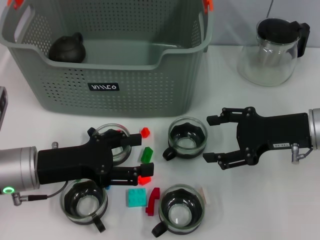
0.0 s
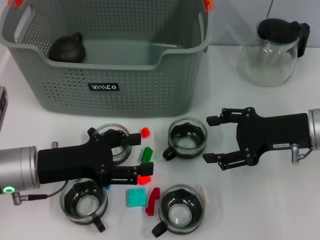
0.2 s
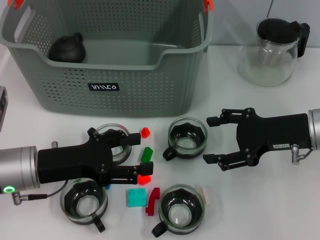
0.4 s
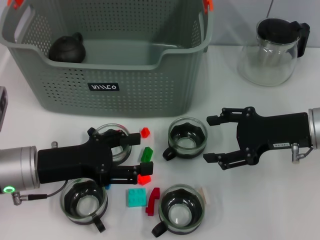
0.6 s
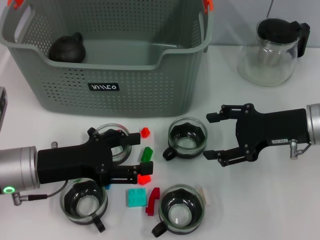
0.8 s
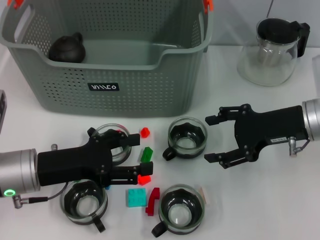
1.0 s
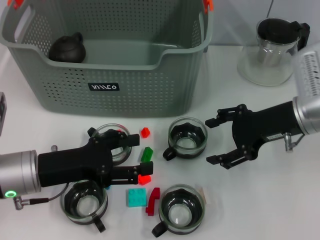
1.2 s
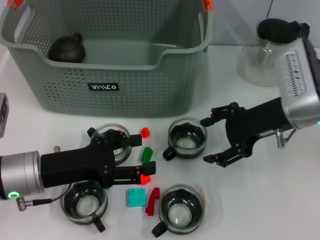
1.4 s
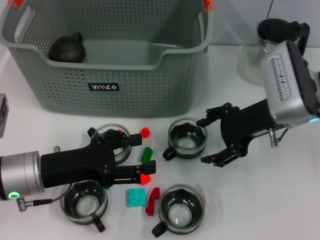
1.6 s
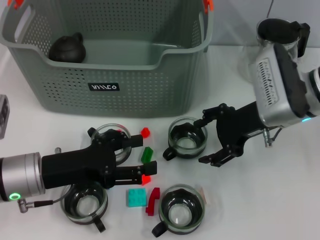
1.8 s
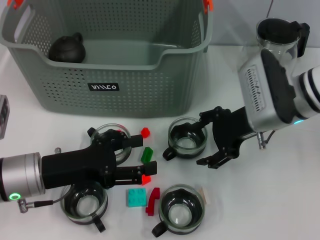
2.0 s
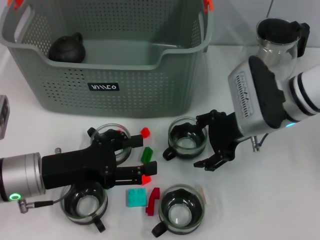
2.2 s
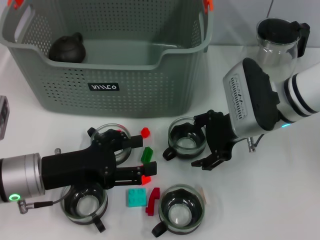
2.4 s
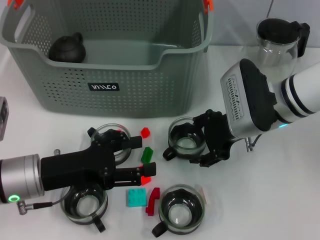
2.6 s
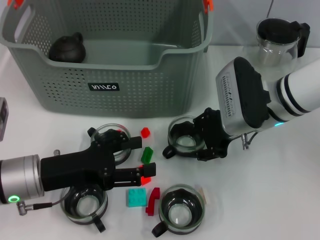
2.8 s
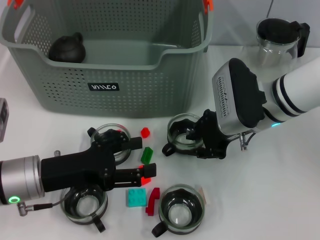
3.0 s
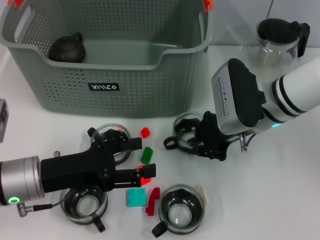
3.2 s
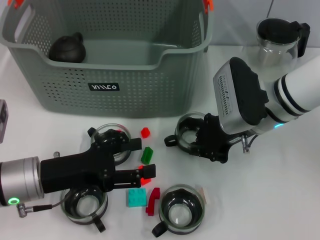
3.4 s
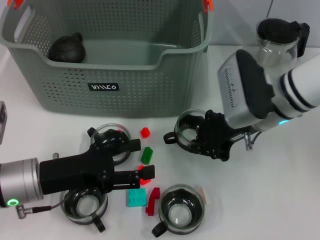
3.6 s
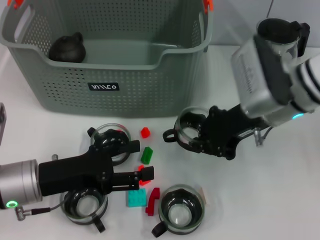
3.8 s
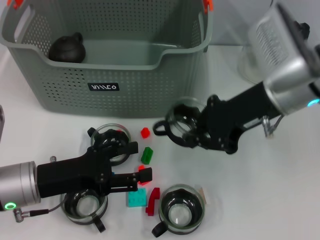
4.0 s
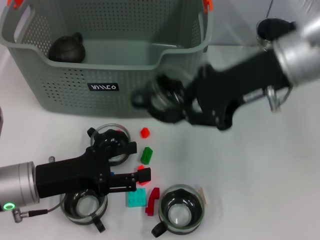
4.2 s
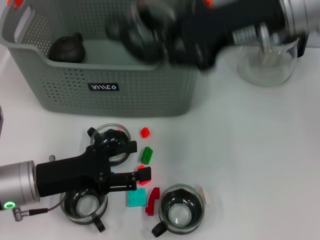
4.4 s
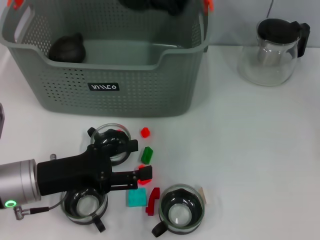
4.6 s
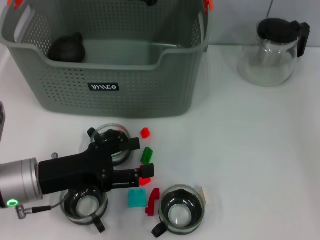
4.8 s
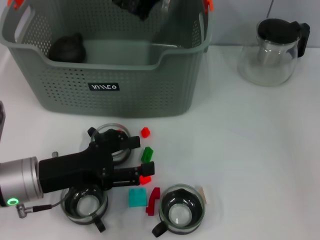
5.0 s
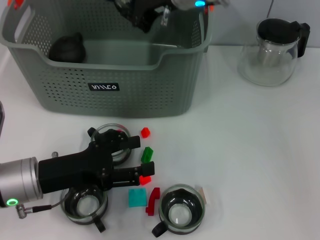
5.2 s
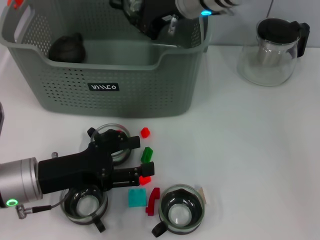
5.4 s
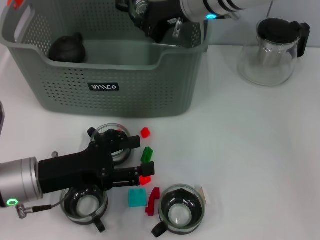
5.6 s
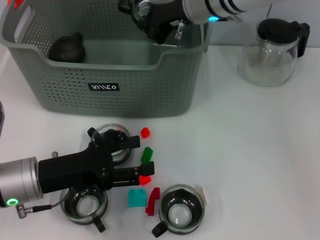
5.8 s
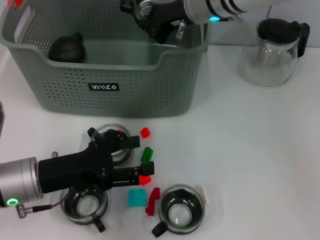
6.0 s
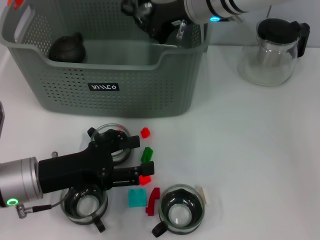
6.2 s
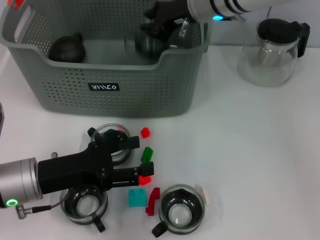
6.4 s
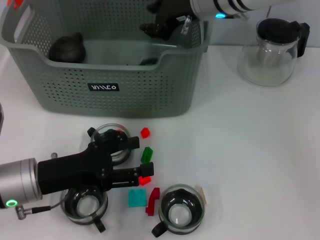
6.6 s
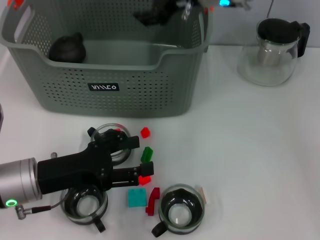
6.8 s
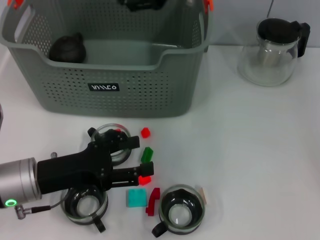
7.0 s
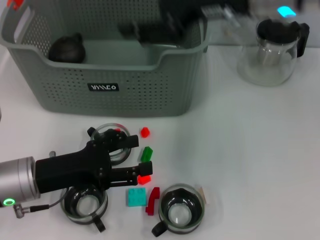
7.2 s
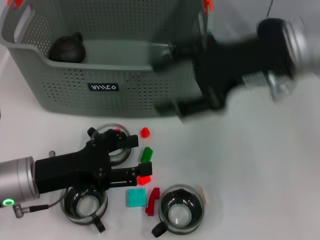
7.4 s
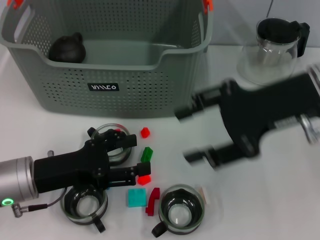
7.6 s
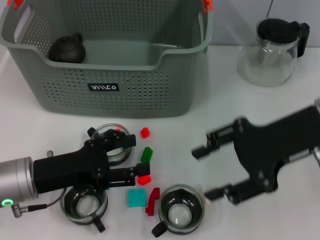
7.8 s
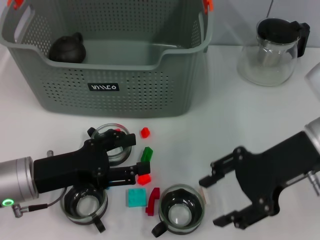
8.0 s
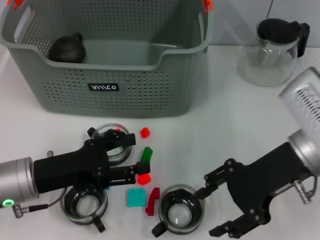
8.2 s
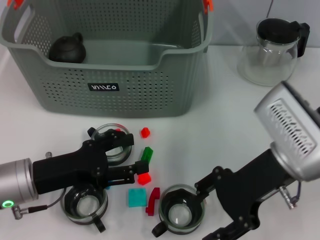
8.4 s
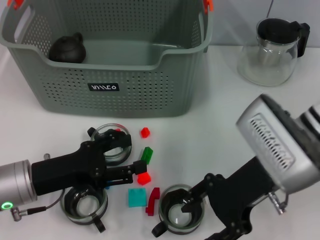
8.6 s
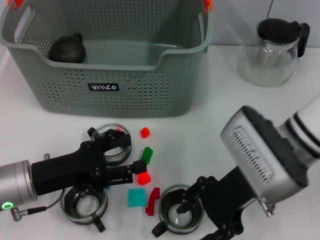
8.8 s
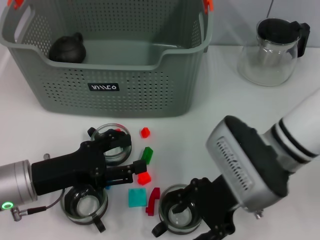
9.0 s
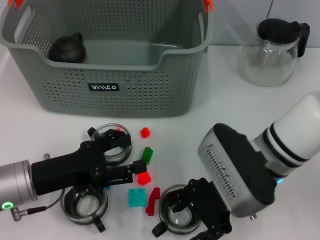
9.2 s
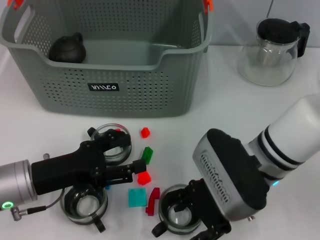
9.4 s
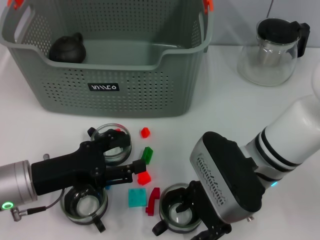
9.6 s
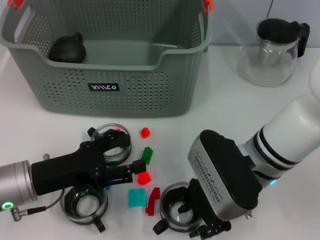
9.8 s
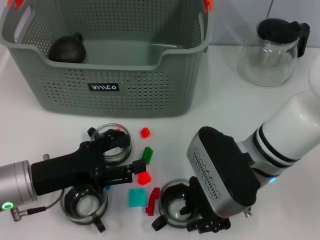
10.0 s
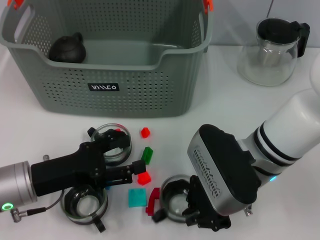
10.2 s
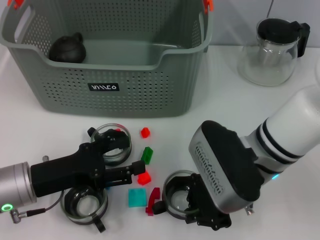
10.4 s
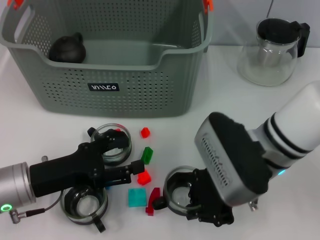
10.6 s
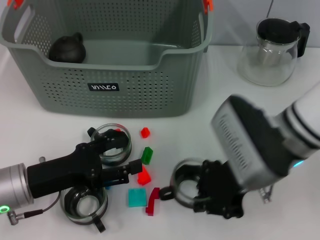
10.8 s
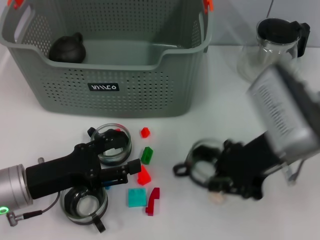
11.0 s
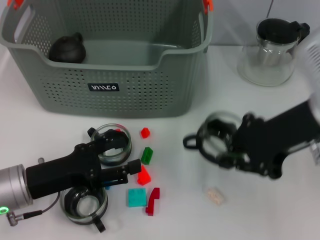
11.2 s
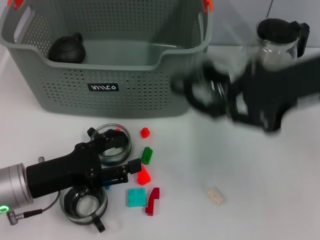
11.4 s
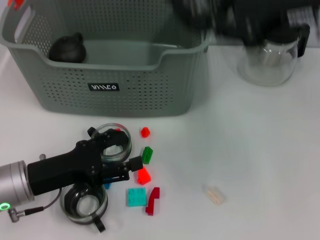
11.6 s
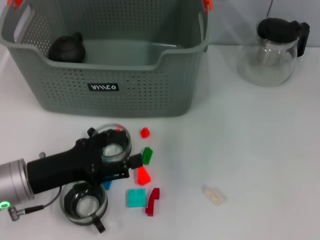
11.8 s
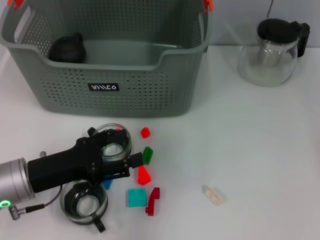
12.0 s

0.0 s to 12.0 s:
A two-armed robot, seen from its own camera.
Task of the whole recording: pick up the teacup on the table and place it into the storage bin, pick up the block on the table and place it into the storage bin.
Step, 0.0 to 3.2 s: Grasp the cup with right gripper.
Step, 3.6 to 6.6 s: Place the cup in the storage box with right gripper.
Step, 6.8 to 10.2 s: Grasp the cup with right gripper.
0.0 to 1.6 s: The right gripper changes place by some 5 cm.
1.6 to 3.0 s: The right gripper moves roughly 5 cm.
3.0 to 4.4 s: The right gripper travels upward by roughly 20 cm, and closes its fingers.
4.4 to 6.0 s: The right gripper travels forward, to the left and downward by about 15 cm.
6.0 to 7.6 s: The right gripper shifts about 20 cm backward and to the right, and opens its fingers.
7.6 to 9.0 s: The right gripper shifts about 10 cm downward and to the left.
9.0 to 10.4 s: The right gripper closes its fingers.
10.4 to 12.0 s: The right gripper travels upward and forward by about 25 cm.

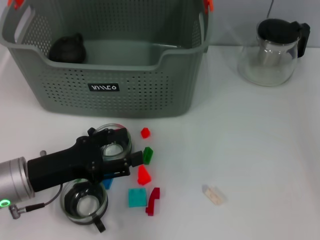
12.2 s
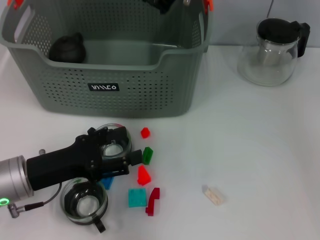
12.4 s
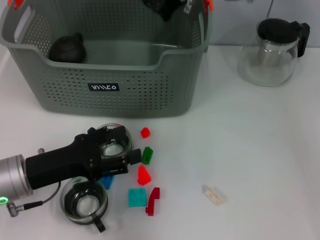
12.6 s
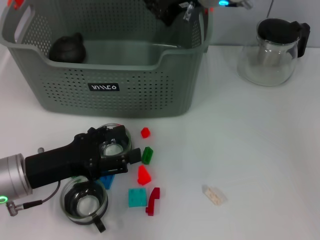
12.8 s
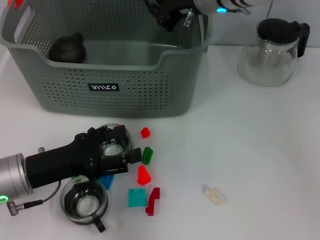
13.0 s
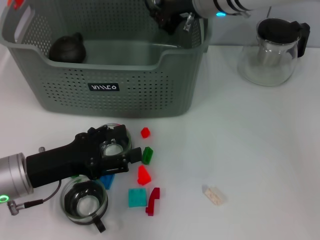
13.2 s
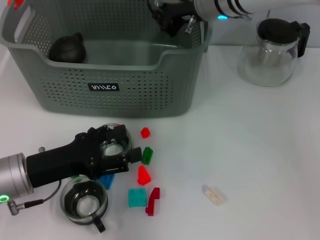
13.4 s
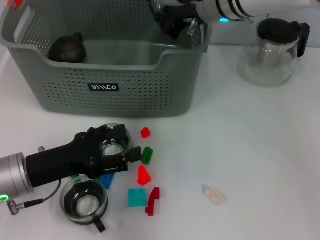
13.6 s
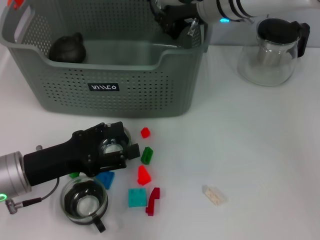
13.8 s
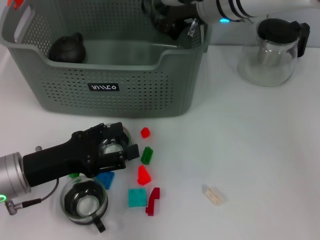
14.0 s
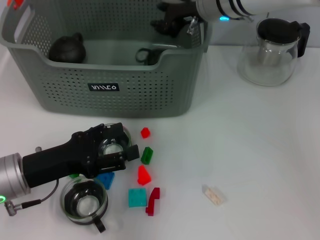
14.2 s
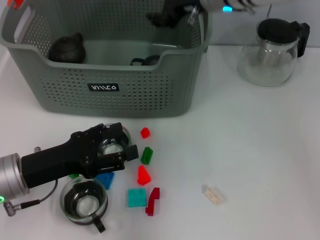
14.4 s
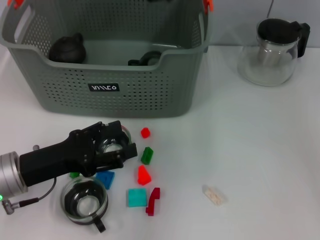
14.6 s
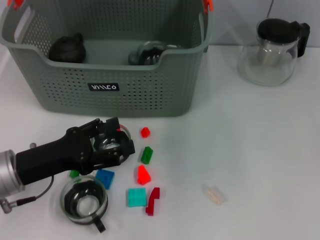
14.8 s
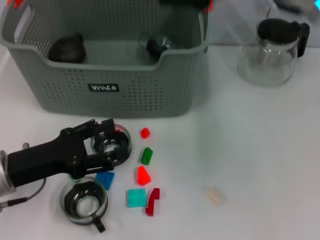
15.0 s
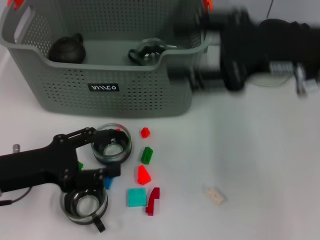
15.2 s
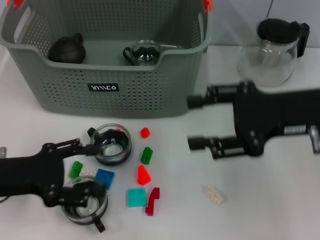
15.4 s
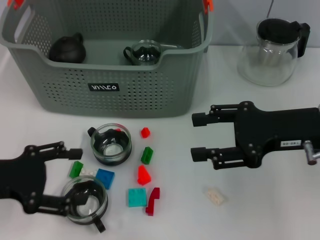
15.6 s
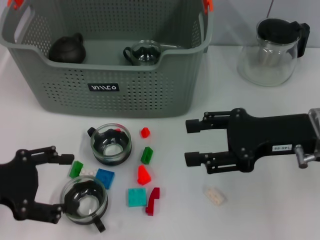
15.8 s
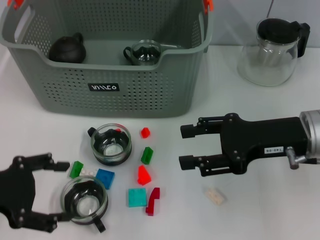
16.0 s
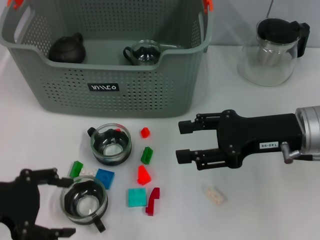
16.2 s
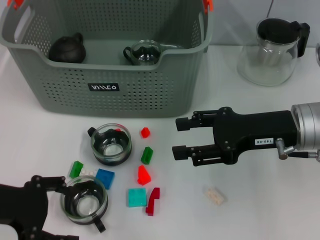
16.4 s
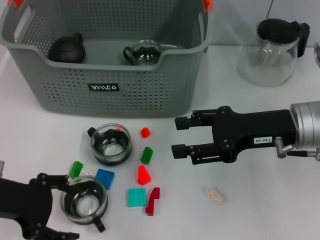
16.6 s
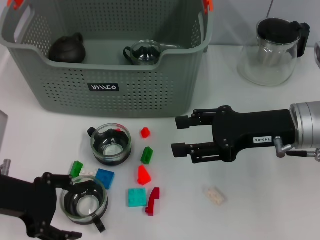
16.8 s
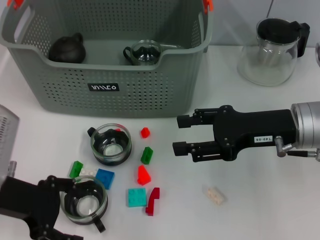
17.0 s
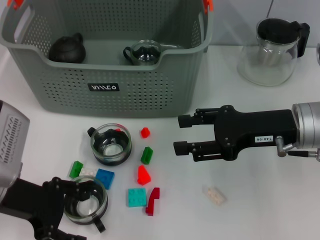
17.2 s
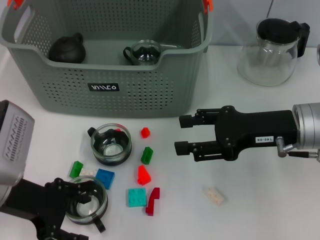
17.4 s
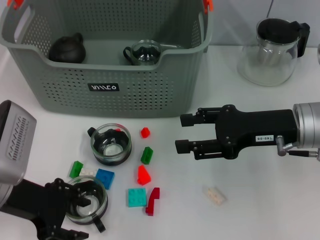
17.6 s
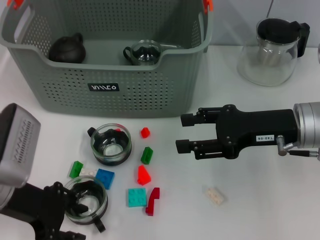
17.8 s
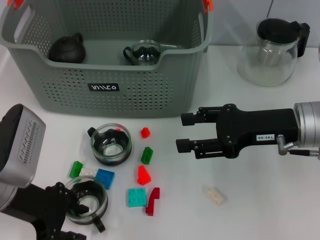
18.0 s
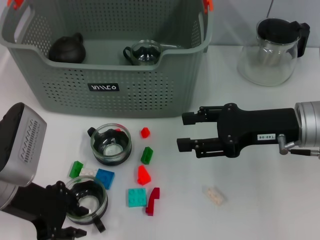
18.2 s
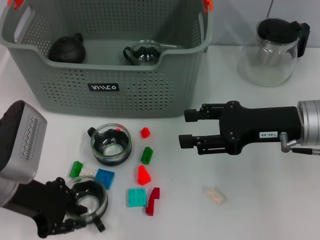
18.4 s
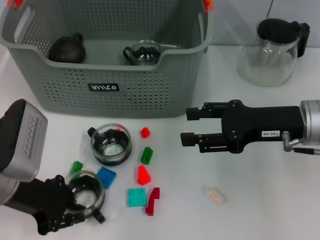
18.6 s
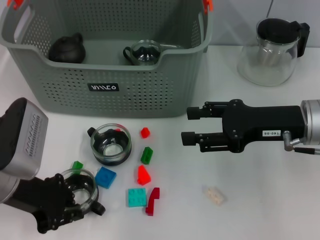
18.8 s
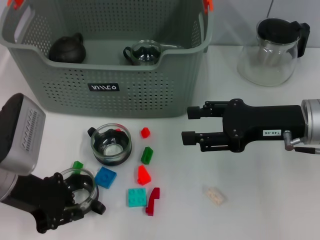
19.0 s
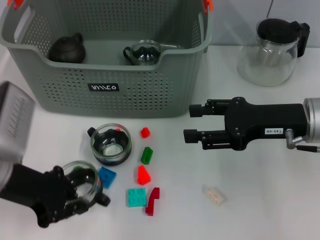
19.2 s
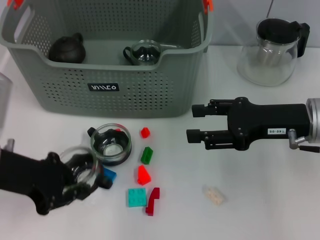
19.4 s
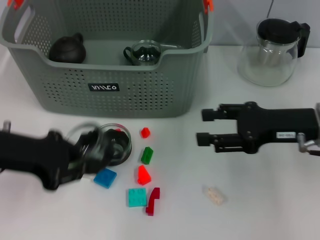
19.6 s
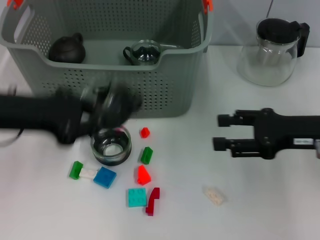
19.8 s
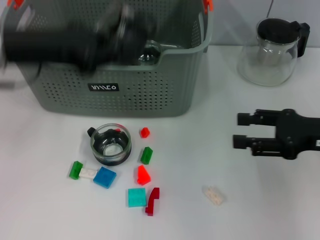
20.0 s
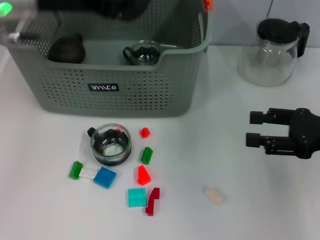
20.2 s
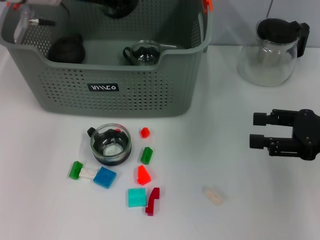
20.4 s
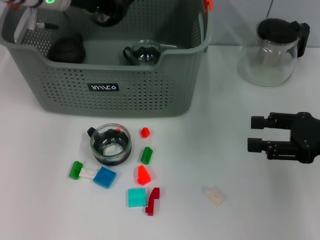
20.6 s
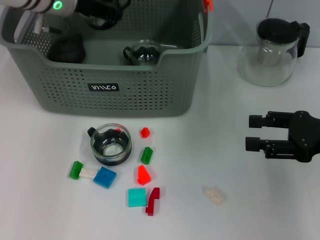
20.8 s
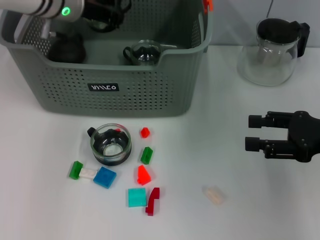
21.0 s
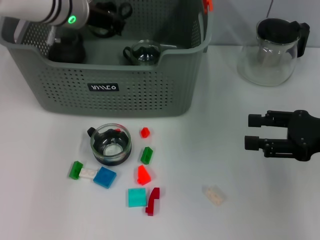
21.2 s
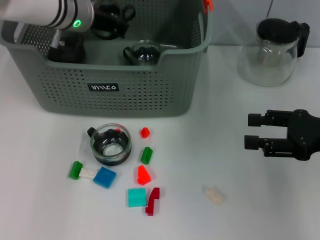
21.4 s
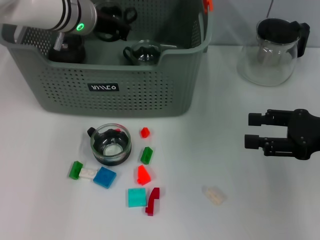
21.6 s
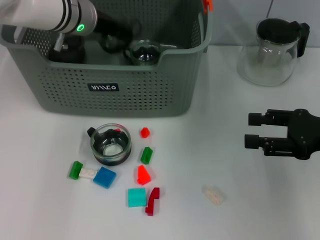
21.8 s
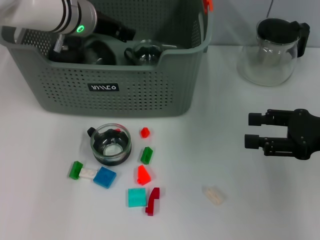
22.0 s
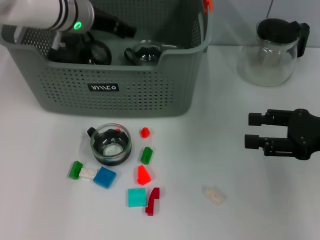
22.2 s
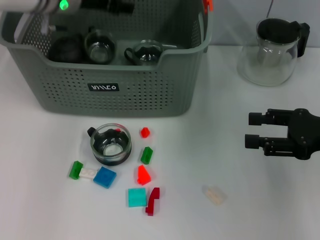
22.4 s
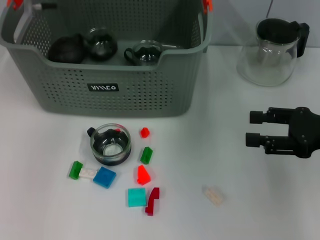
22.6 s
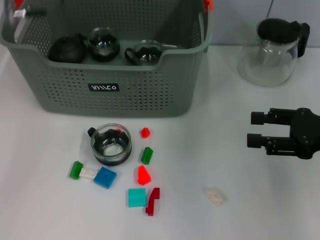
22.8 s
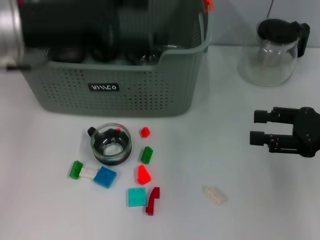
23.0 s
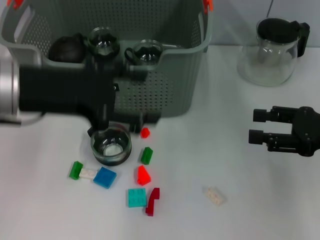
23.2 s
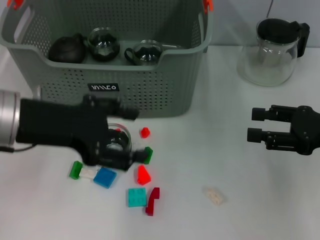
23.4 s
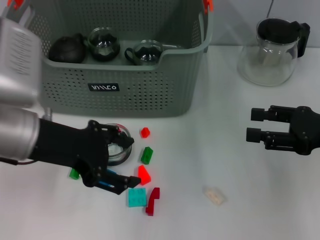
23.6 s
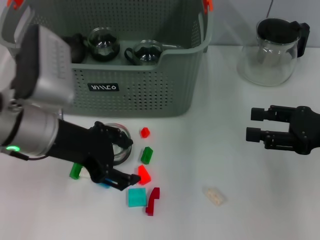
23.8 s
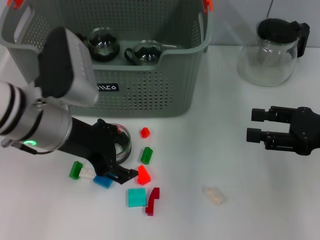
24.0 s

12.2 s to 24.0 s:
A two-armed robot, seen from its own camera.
Task of the whole recording: pick up the teacup on the table and place it into the storage bin, pick up the block on the table and place it into the storage bin.
Step, 12.2 to 14.2 s: Place the cup in the storage box with right gripper.
Step, 14.4 to 18.6 s: Grasp the cup with left gripper.
Step, 18.8 to 22.2 s: Place the cup in the storage box with left gripper.
12.2 to 13.6 s: The right gripper moves downward, approximately 10 cm.
13.6 to 15.2 s: The right gripper is displaced backward and to the right by approximately 20 cm, and opens its fingers.
15.2 to 16.6 s: The right gripper heads downward, covering about 10 cm.
16.6 to 18.2 s: The left gripper closes up.
18.2 to 19.6 s: The left gripper heads upward, covering approximately 5 cm, and closes its fingers.
19.6 to 21.0 s: The left gripper travels forward and to the right by some 20 cm, while the right gripper moves to the right, roughly 5 cm.
21.0 to 22.6 s: The left gripper shifts some 5 cm upward, and opens.
22.6 to 24.0 s: The left gripper moves backward and downward, roughly 15 cm.
